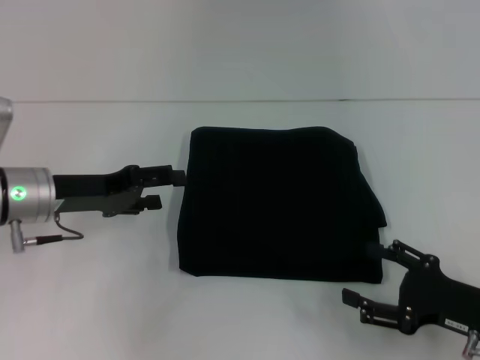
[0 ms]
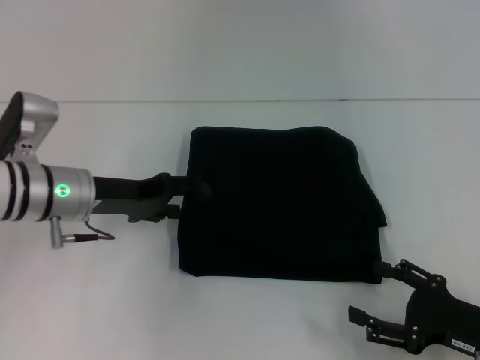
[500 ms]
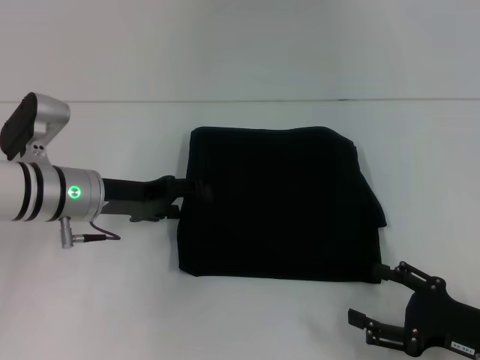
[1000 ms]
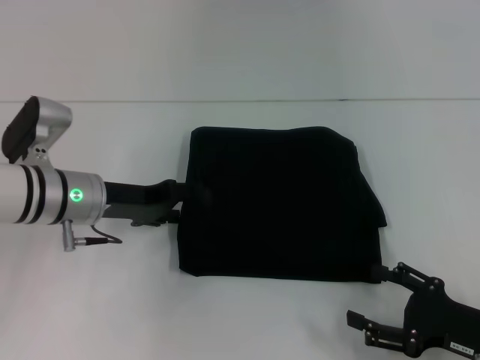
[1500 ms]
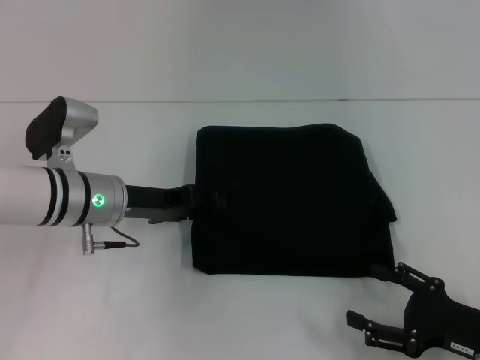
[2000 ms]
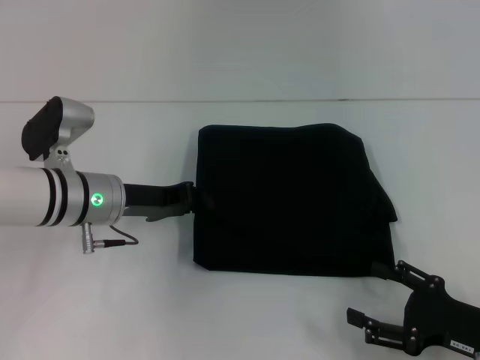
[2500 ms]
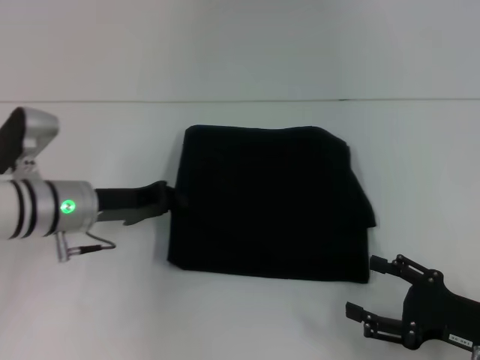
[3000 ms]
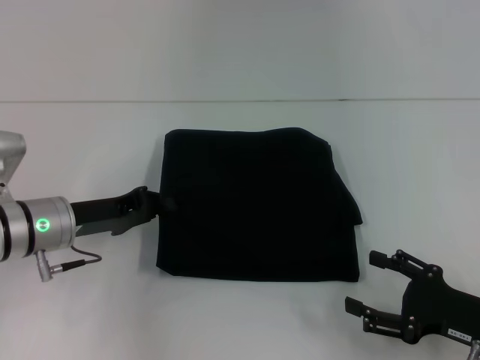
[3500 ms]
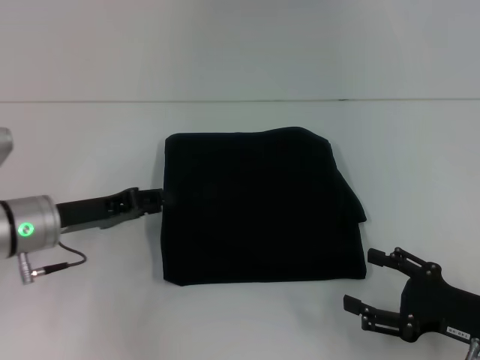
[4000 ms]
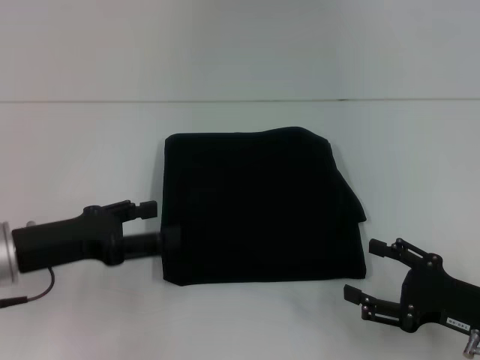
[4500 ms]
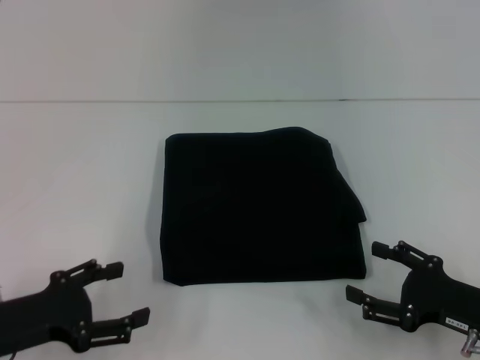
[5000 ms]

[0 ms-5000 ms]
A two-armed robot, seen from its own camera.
0 ms to 2500 ms: The left gripper heads to the right, covering approximately 5 cm, and closes its fingers.
2500 ms to 5000 ms: The left gripper moves backward and to the left, approximately 20 cm, and opens up.

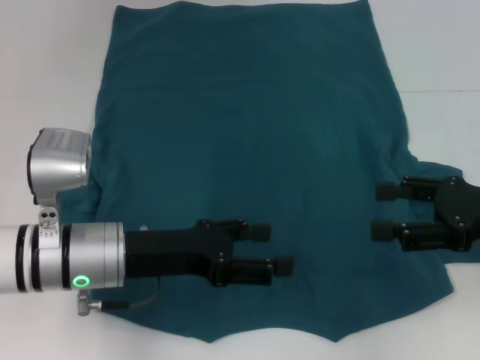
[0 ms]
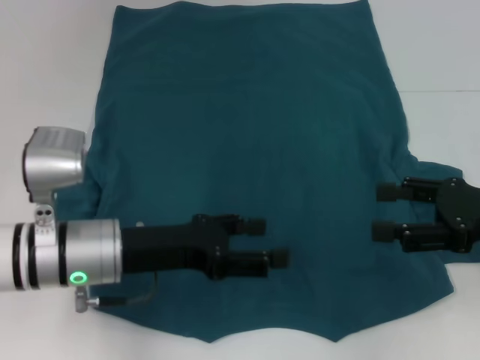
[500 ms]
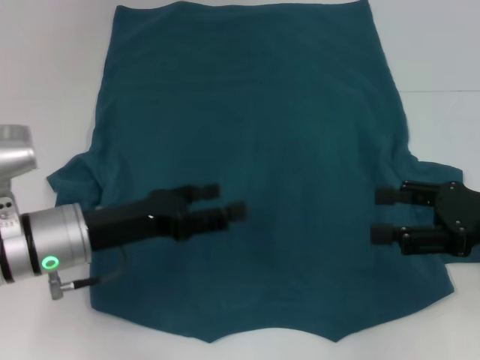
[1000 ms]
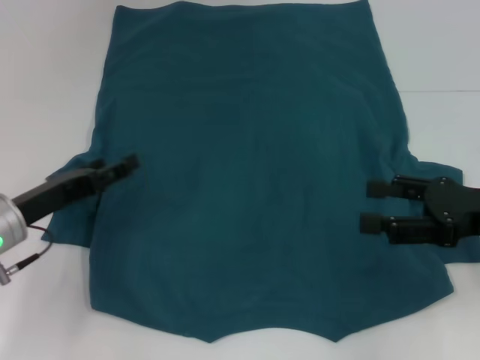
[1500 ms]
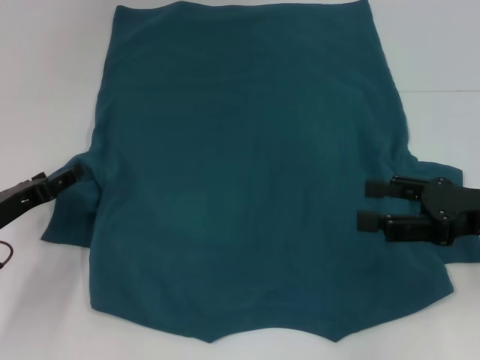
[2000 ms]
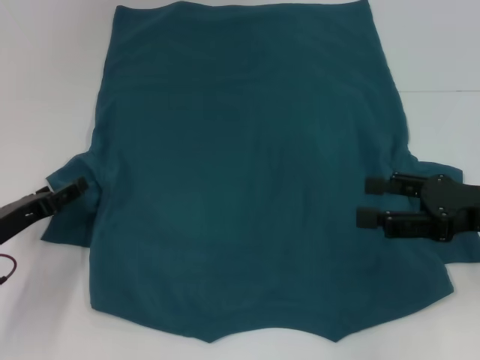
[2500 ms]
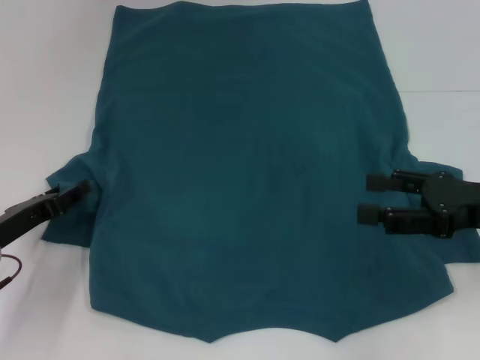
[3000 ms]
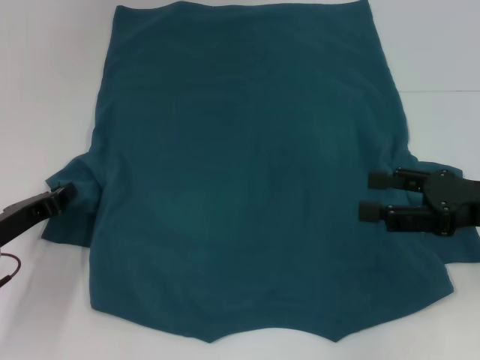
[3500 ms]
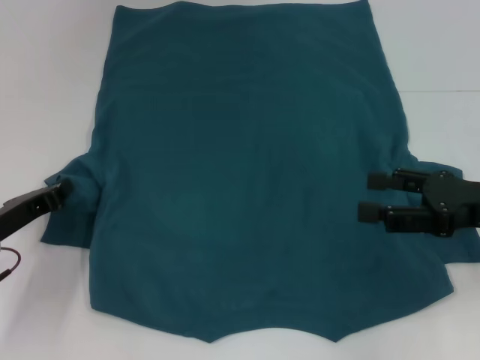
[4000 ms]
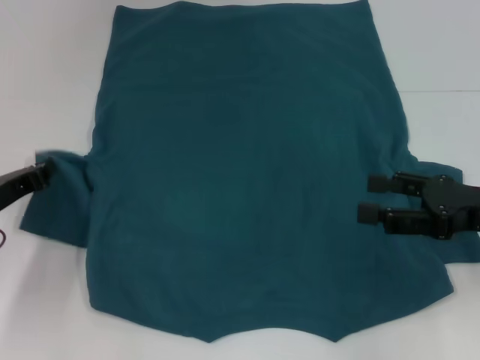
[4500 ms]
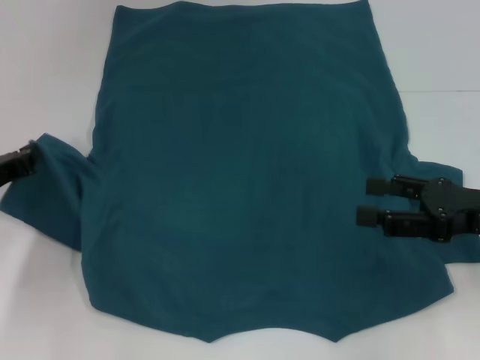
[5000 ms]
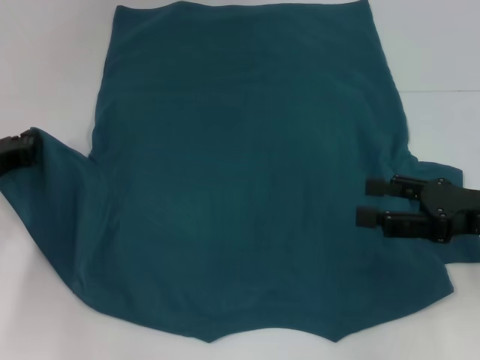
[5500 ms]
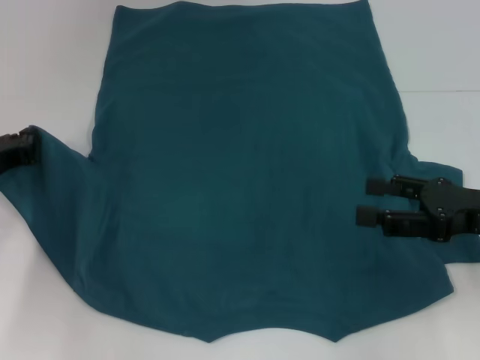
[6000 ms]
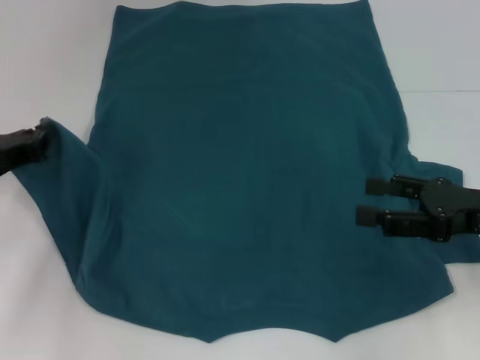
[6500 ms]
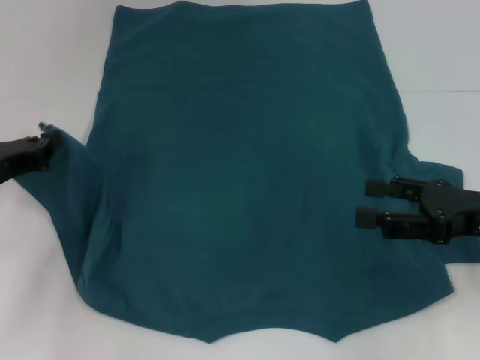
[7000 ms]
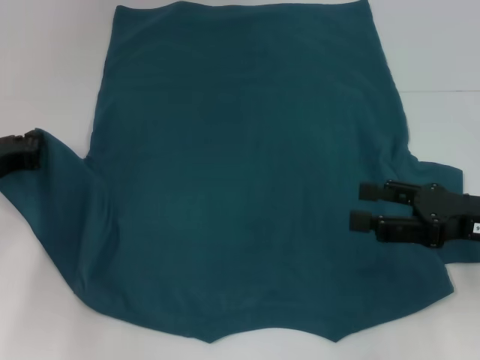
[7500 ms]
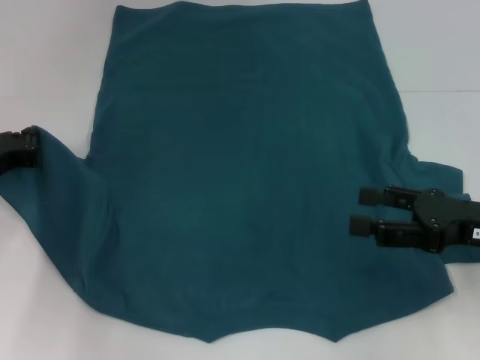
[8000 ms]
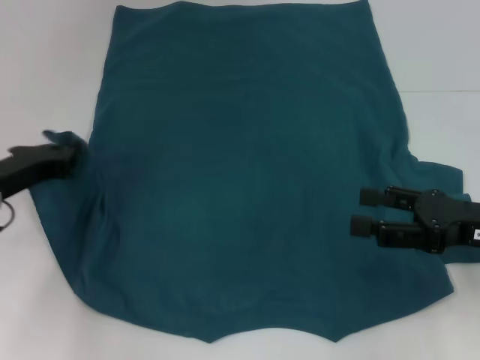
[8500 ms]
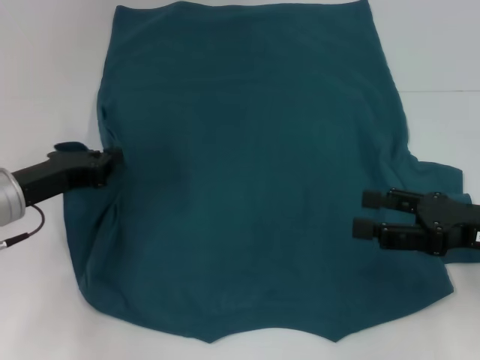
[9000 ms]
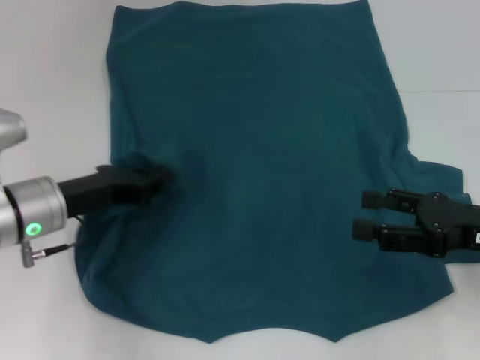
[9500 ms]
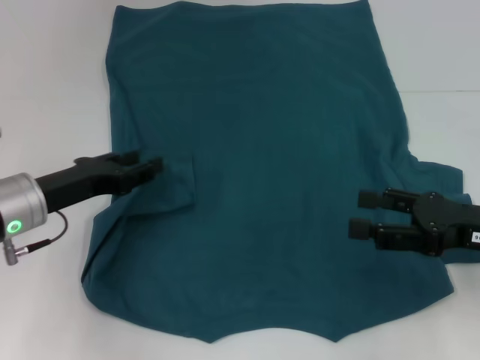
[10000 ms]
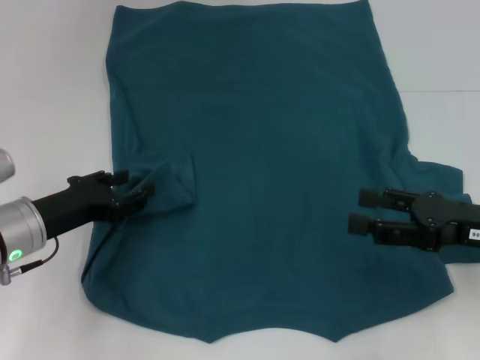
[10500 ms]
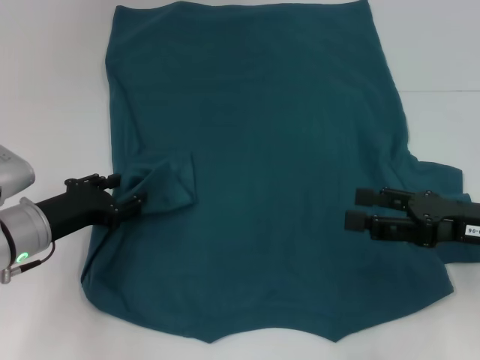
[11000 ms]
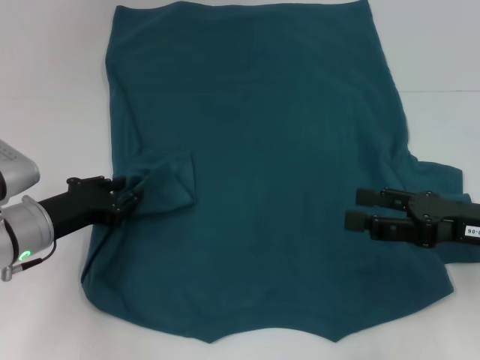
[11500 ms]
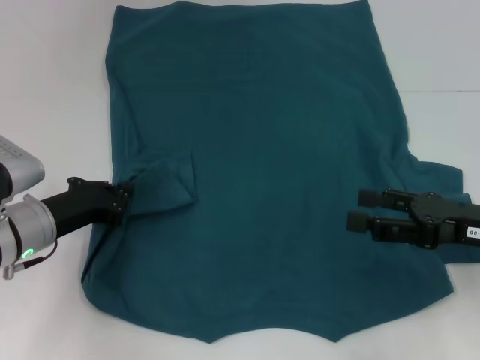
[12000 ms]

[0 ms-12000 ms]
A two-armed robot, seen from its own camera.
0 ms to 2000 ms: The left gripper heads to the left, covering some 15 cm.
2000 ms to 4000 ms: The left gripper closes up.
4000 ms to 6000 ms: The left gripper ends up some 5 cm from where it was.
6000 ms to 8000 ms: The grippers move only a little.
8000 ms to 10000 ms: The left gripper travels to the right by approximately 5 cm, and opens its fingers.

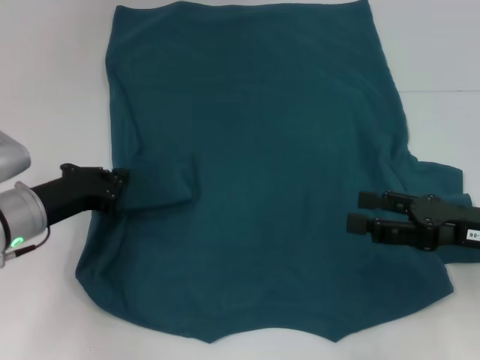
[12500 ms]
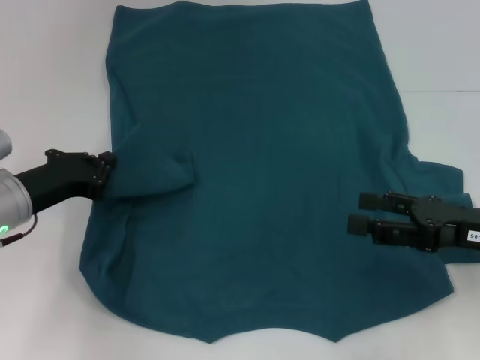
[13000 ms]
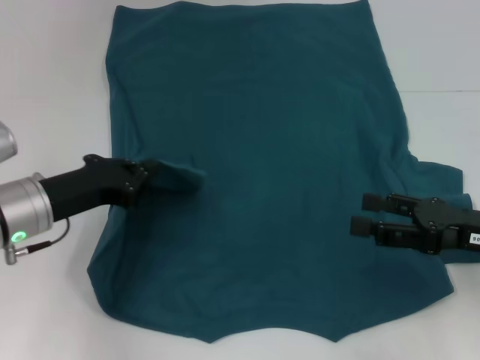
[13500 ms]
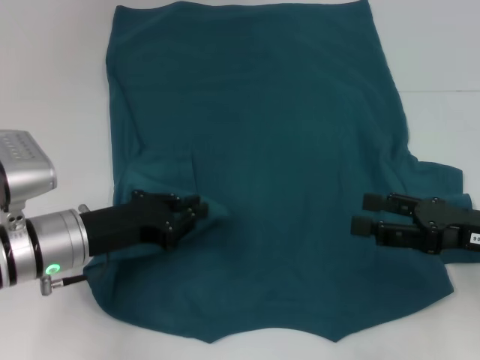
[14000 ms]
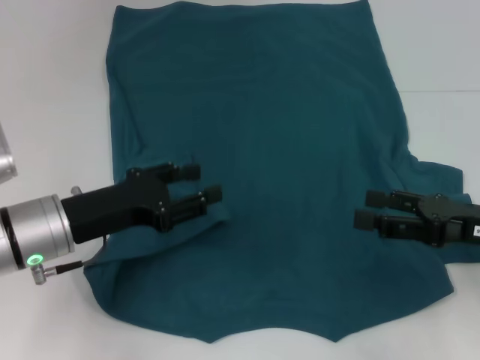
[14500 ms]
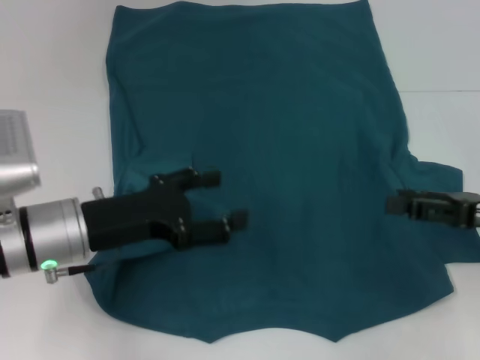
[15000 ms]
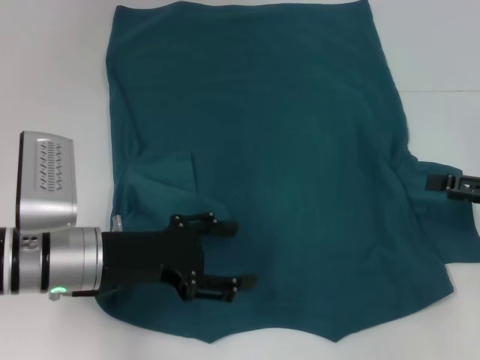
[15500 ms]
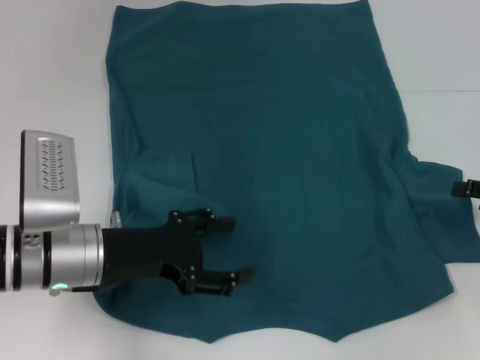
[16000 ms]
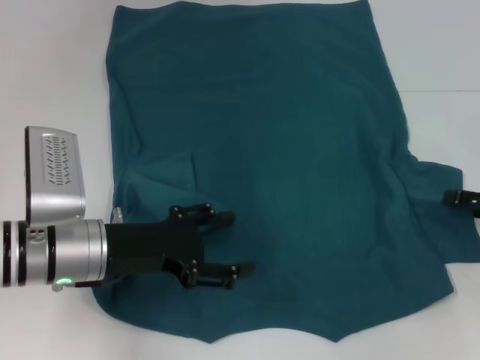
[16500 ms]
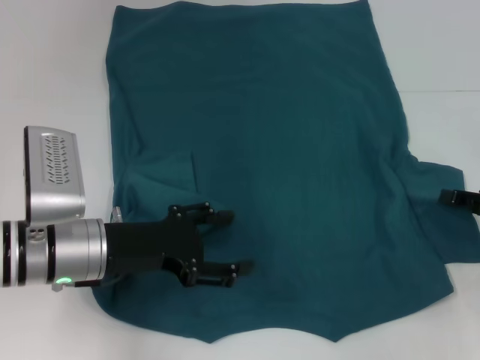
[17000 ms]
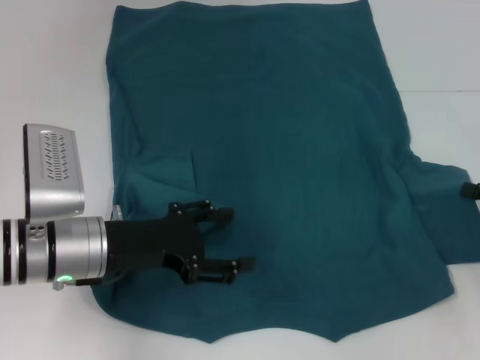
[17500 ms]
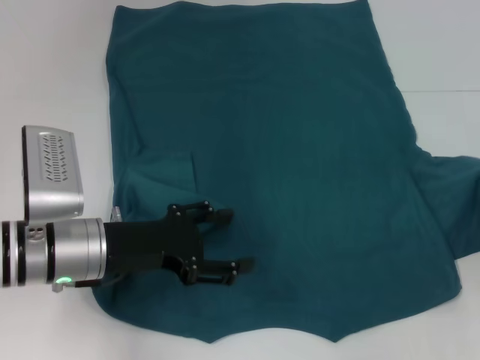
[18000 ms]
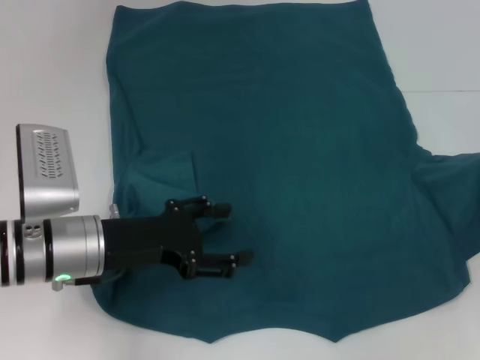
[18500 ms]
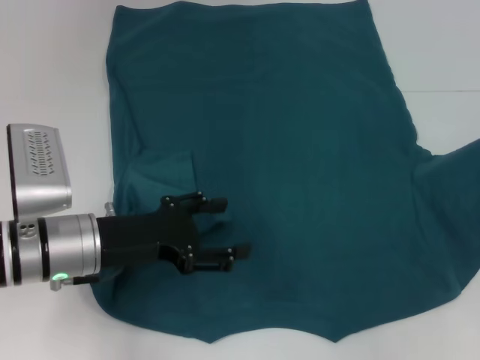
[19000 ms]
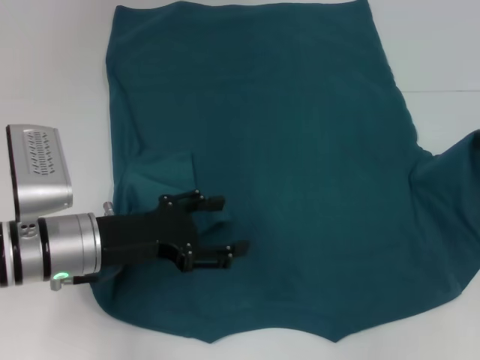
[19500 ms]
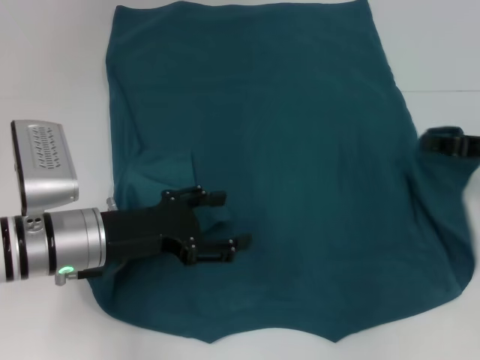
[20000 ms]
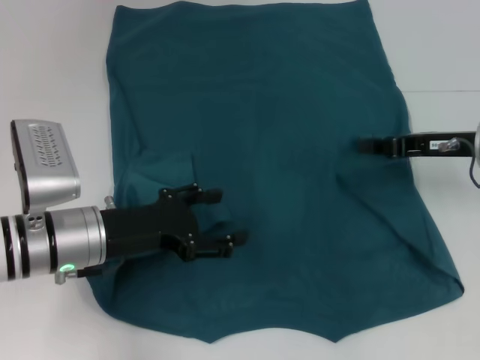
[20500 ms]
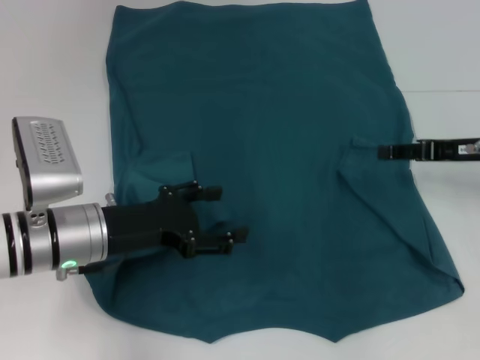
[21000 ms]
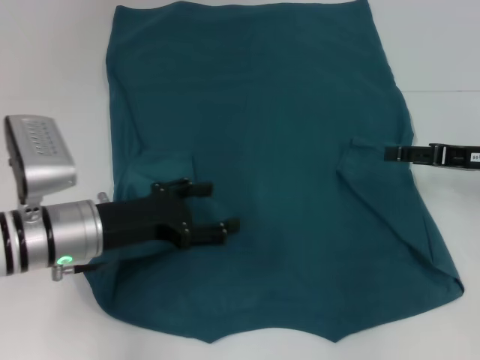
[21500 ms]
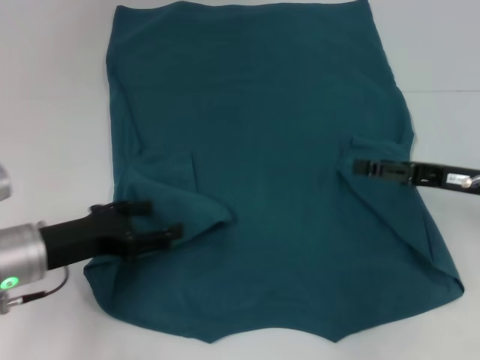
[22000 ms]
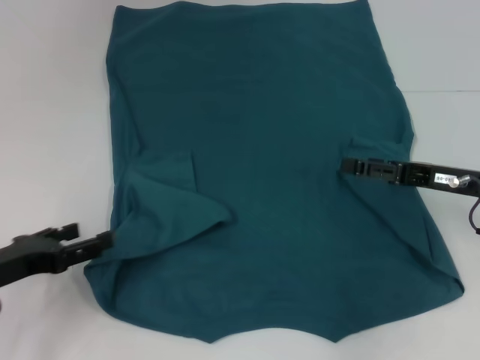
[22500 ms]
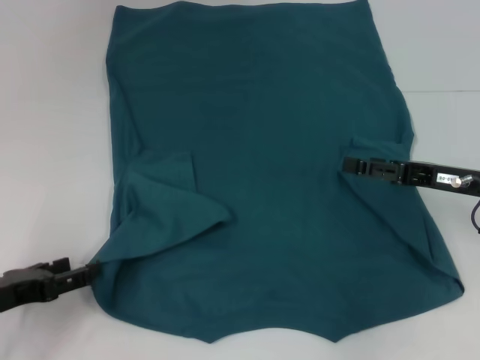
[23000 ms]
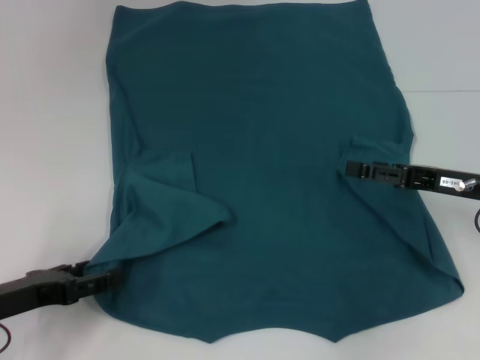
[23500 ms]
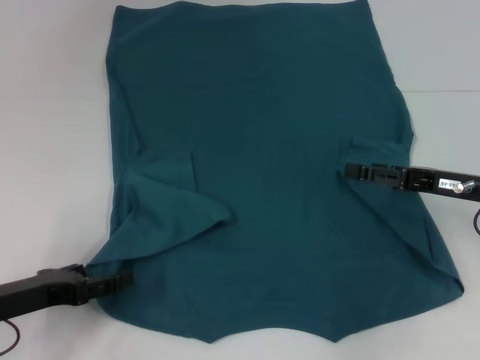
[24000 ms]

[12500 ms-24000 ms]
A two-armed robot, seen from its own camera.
Step, 12500 ms to 14500 ms: Fold the bottom left sleeve with your left hand.
Step, 15000 ms to 20500 ms: Fold the bottom right sleeve to the right.
12500 ms to 14500 ms: The left gripper ends up some 5 cm from where it was, and opens its fingers.
14500 ms to 16500 ms: The left gripper opens its fingers; the right gripper goes about 10 cm to the right.
16500 ms to 18500 ms: The right gripper closes up.
18500 ms to 20000 ms: The right gripper moves to the left, about 5 cm.
20000 ms to 22000 ms: The right gripper changes place by about 5 cm, and opens. Meanwhile the left gripper shifts some 5 cm to the left.
22000 ms to 24000 ms: The left gripper ends up about 5 cm from where it was.
